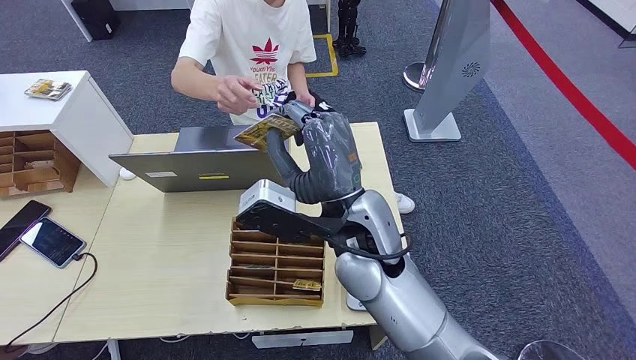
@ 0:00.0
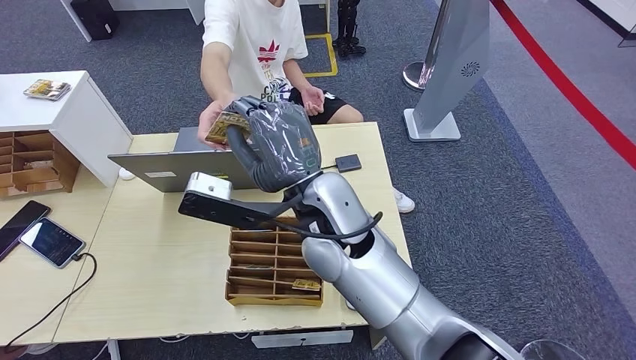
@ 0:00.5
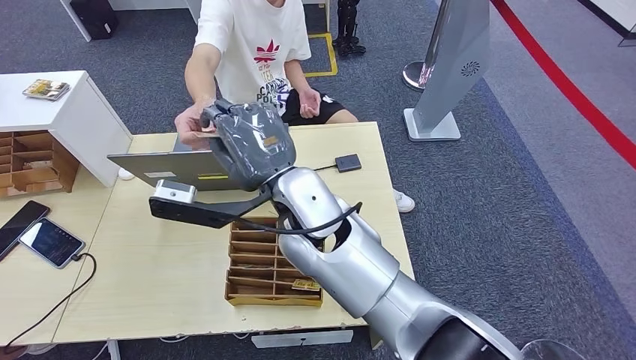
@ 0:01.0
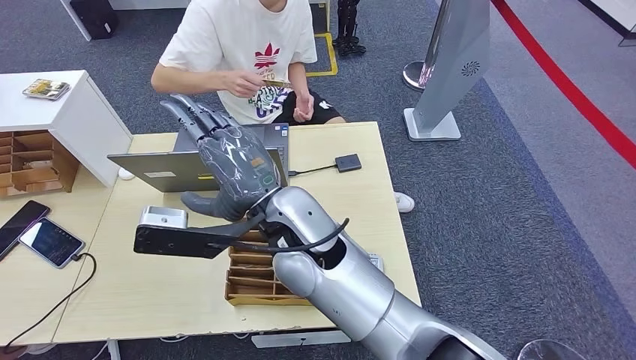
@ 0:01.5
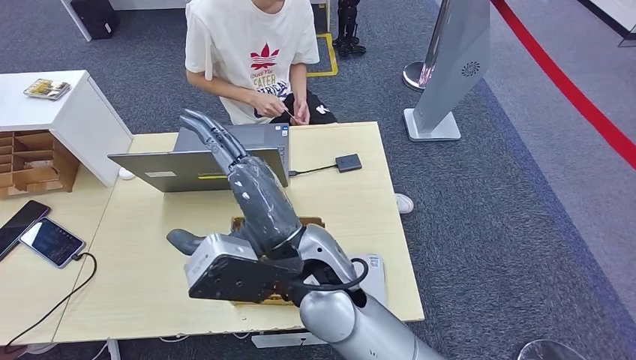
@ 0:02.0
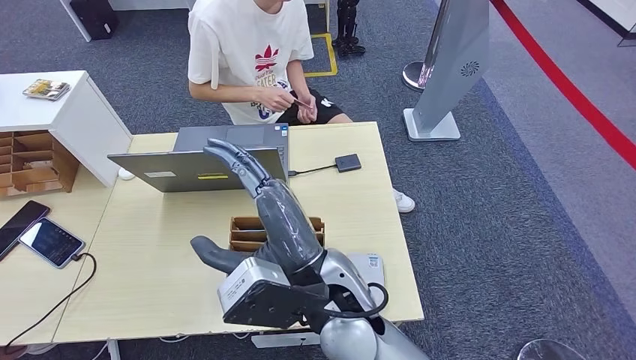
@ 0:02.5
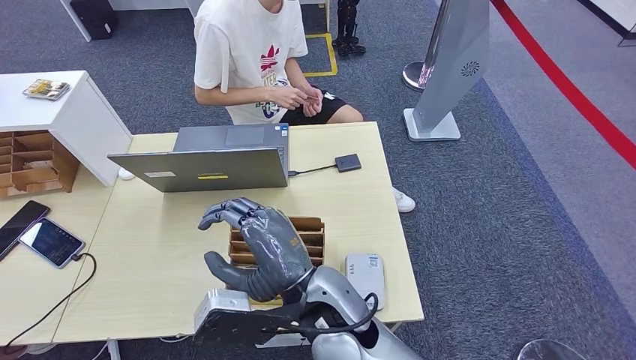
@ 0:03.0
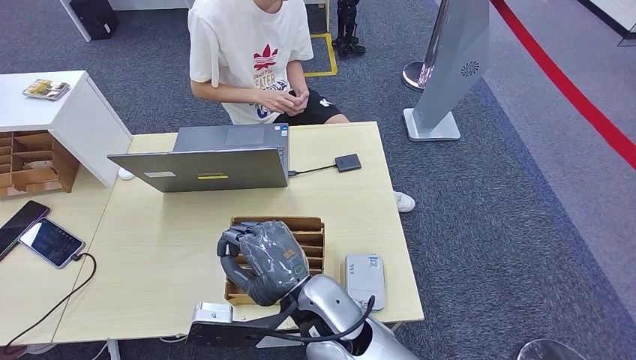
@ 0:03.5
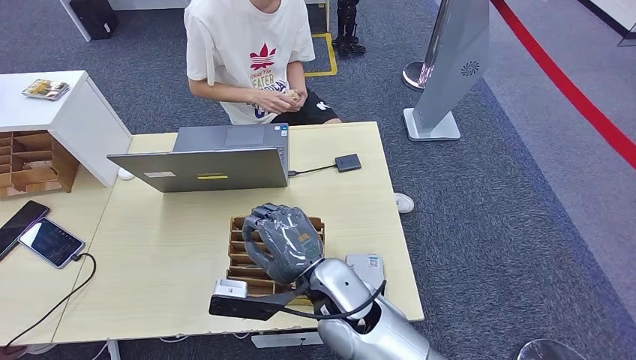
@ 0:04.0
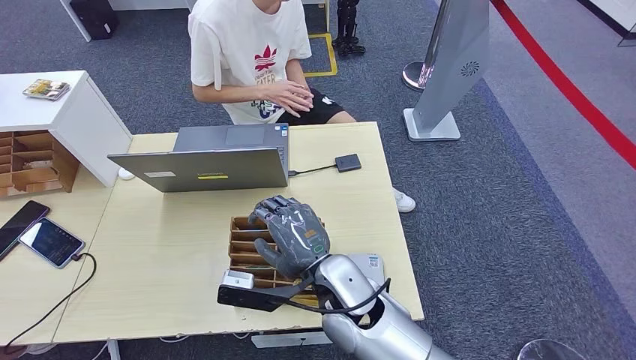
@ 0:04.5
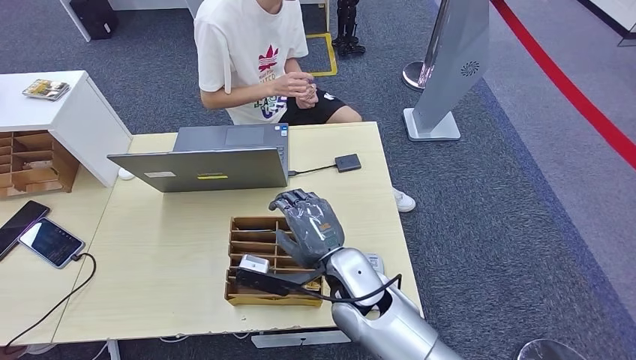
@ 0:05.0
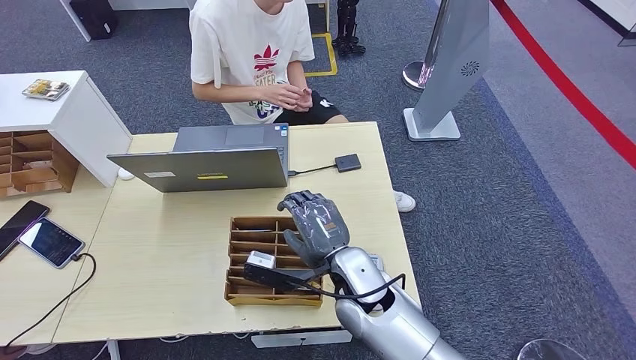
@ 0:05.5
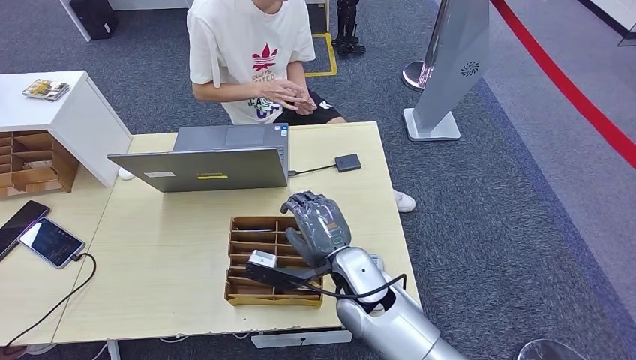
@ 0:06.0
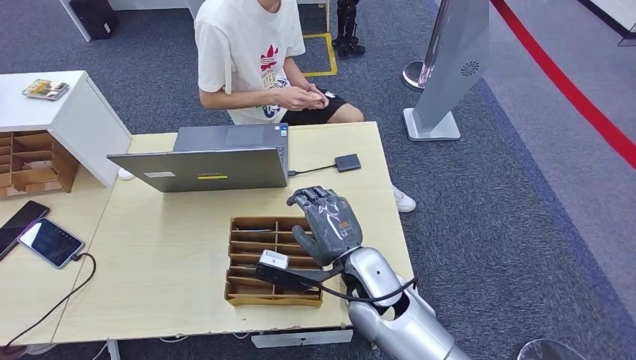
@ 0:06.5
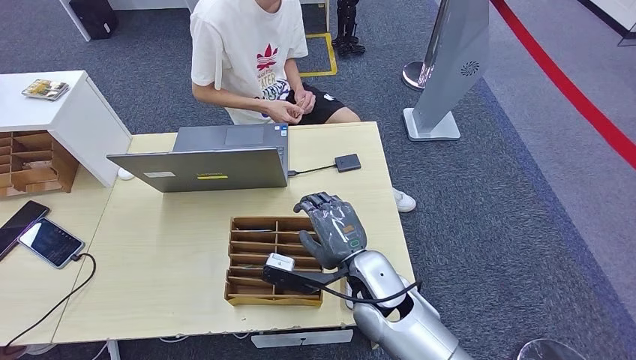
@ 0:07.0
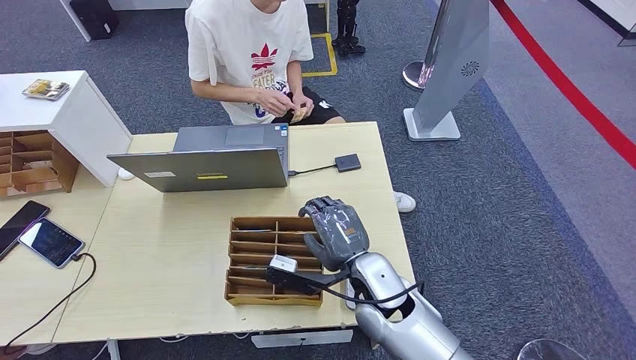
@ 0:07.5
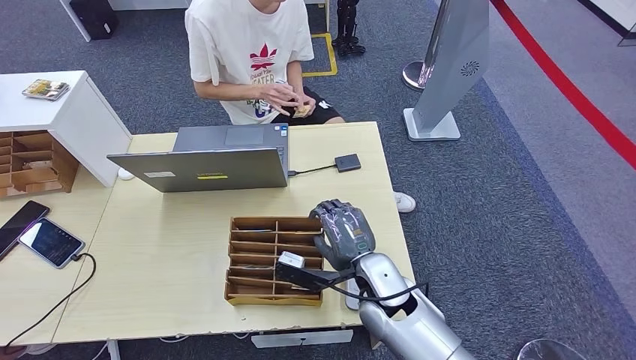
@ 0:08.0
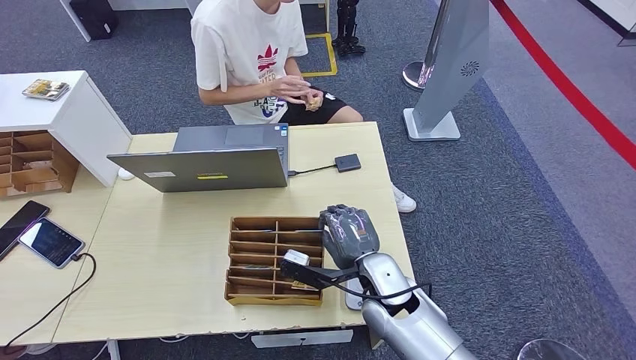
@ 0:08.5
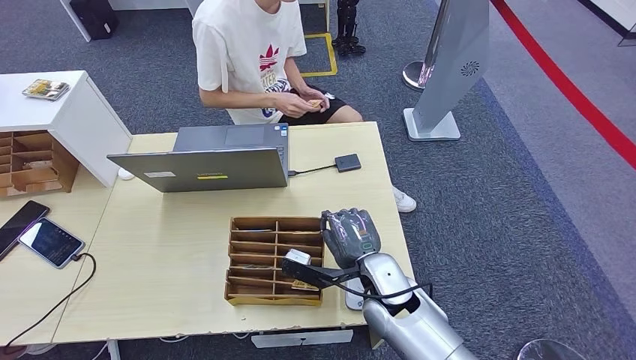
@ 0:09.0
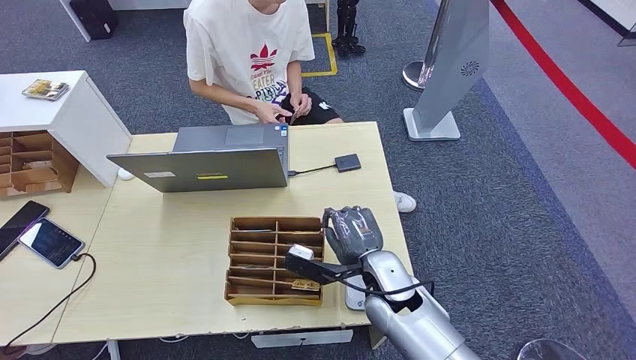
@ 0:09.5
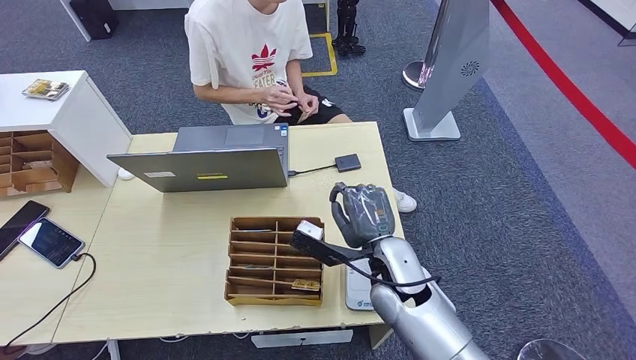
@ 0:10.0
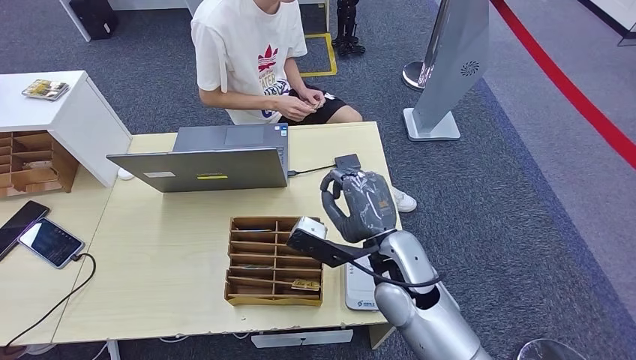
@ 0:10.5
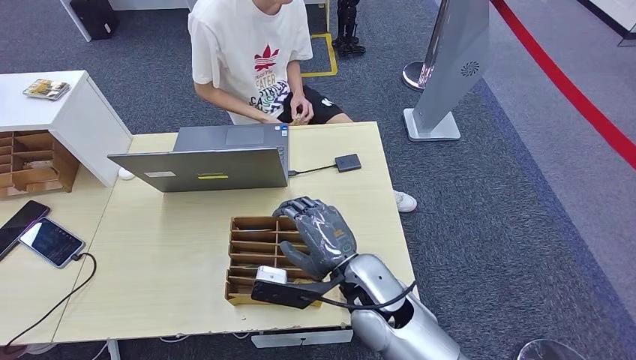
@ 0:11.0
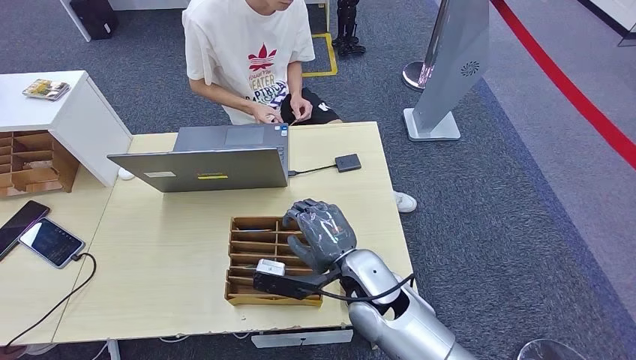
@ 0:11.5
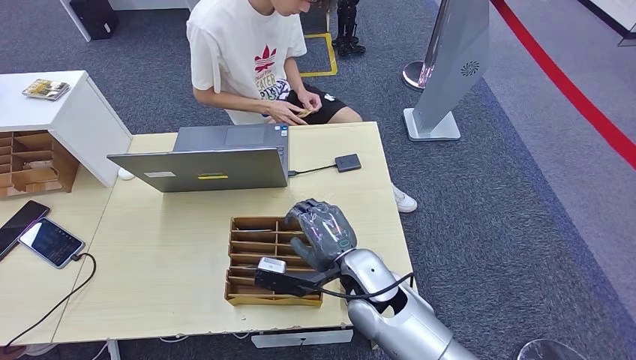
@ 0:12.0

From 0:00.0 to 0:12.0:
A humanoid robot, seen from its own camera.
From 0:00.0 to 0:02.0: The right hand heads to the left and backward, covering roughly 10 cm.
From 0:02.0 to 0:04.0: The right hand is displaced downward by about 10 cm.
From 0:04.0 to 0:06.0: The right hand shifts by approximately 5 cm.
From 0:06.0 to 0:08.0: The hands make only small movements.
From 0:08.0 to 0:10.0: The hands make only small movements.
From 0:10.0 to 0:12.0: The hands stay close to where they were, moving slightly.

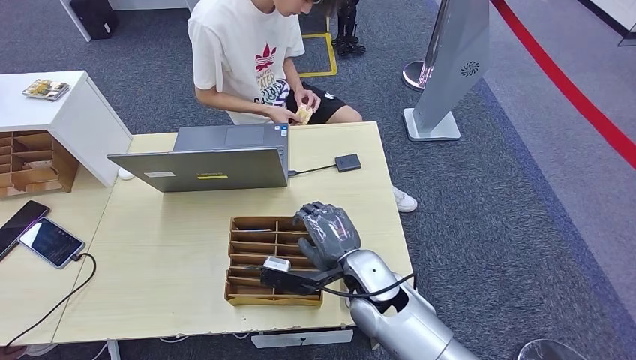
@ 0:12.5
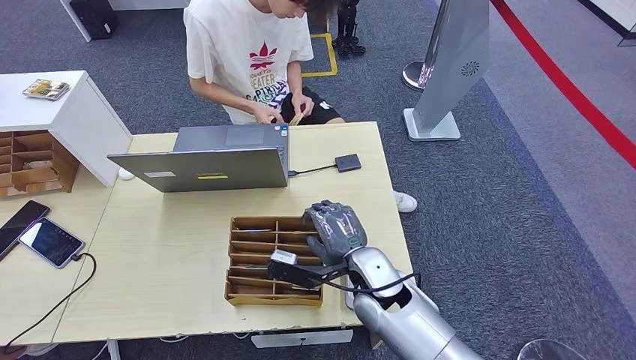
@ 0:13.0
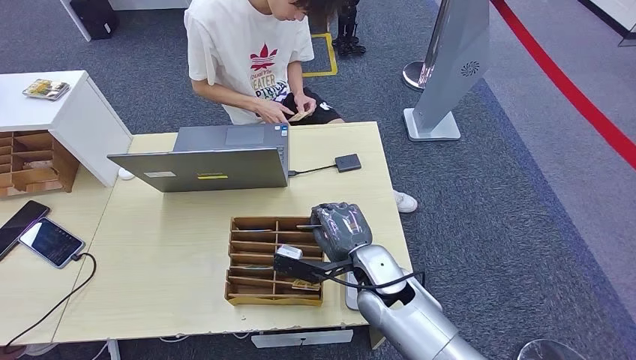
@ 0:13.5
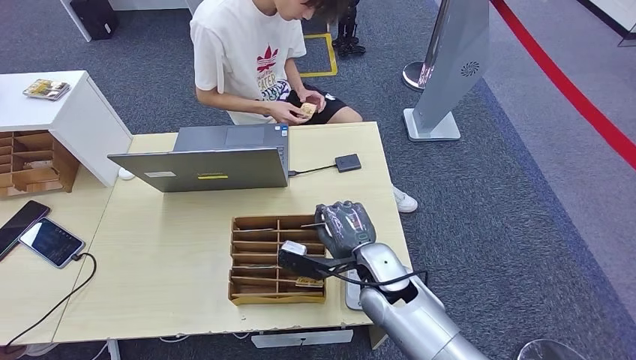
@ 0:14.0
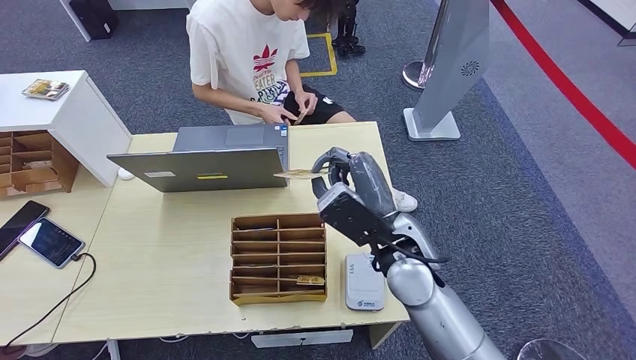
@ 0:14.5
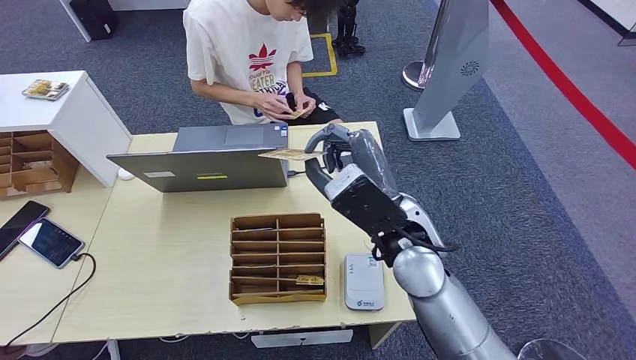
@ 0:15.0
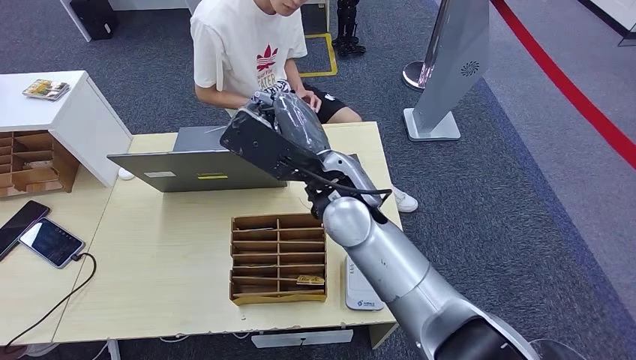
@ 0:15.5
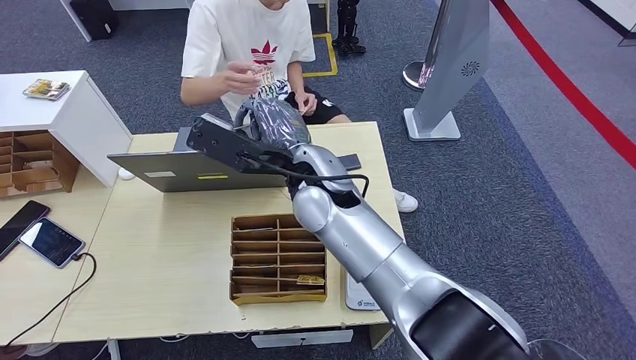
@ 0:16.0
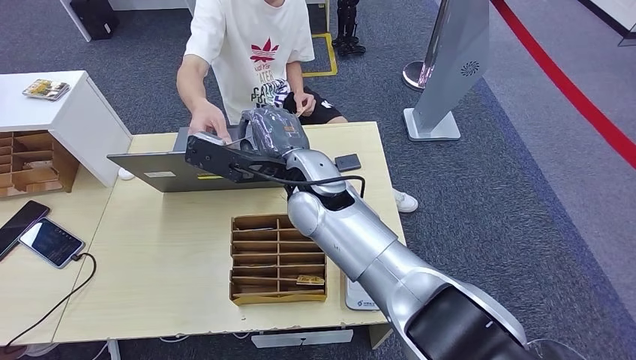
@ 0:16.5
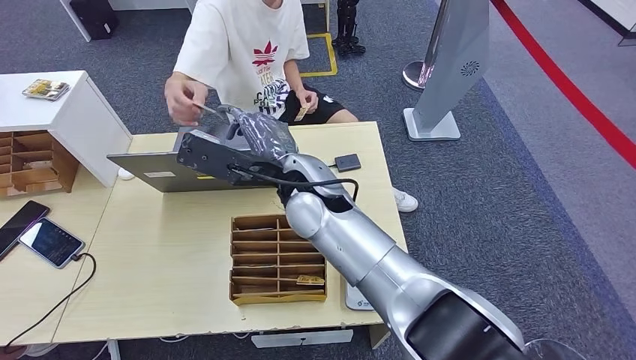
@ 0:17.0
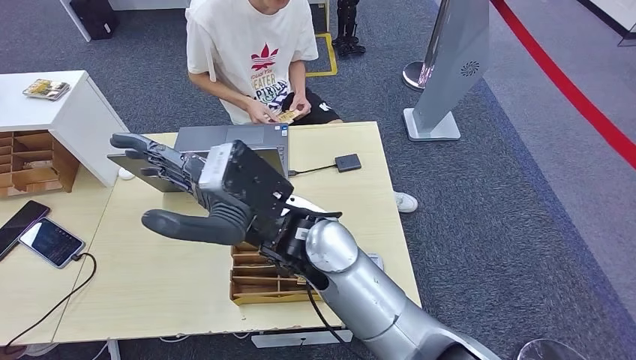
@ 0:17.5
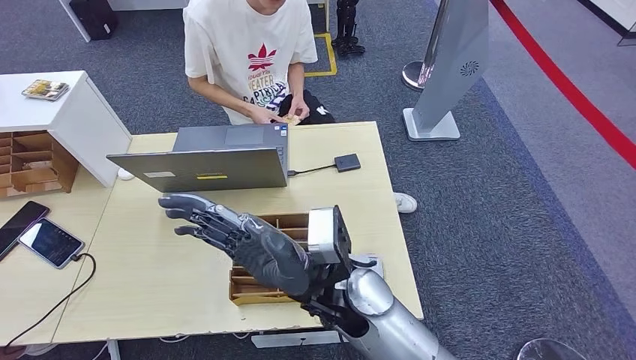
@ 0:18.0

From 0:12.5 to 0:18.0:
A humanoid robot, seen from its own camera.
Step, from 0:14.5 to 0:18.0: Hand the room key to the person.
From 0:12.5 to 0:14.5: The right hand is displaced upward by roughly 10 cm.
From 0:14.5 to 0:16.0: The right hand goes approximately 15 cm to the left, upward and forward.
From 0:16.0 to 0:18.0: The right hand is displaced backward and downward by approximately 15 cm.
